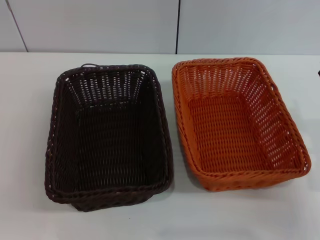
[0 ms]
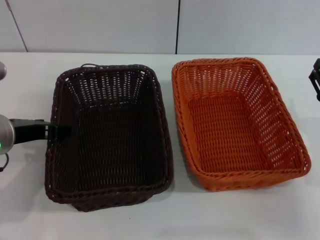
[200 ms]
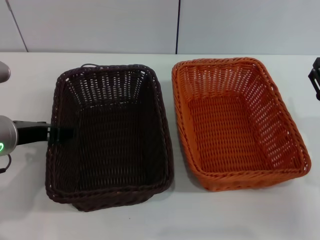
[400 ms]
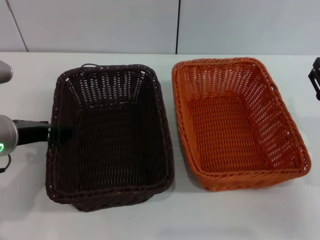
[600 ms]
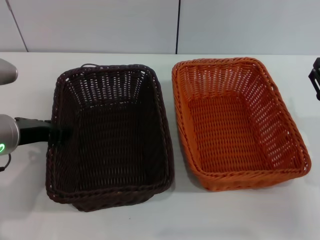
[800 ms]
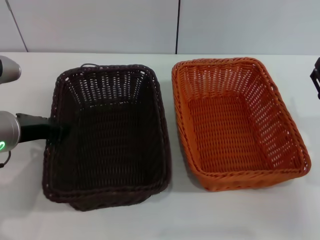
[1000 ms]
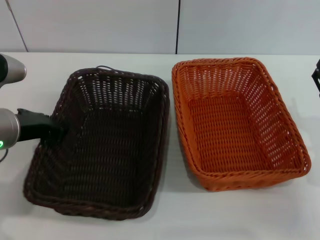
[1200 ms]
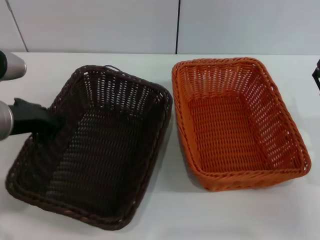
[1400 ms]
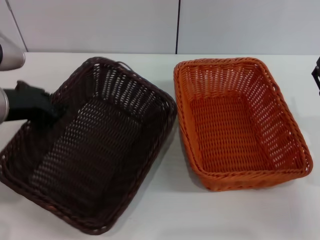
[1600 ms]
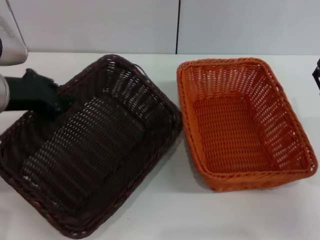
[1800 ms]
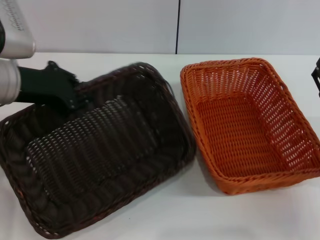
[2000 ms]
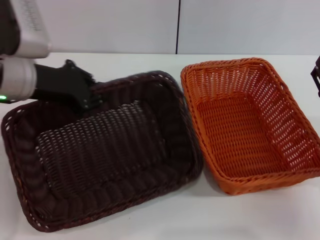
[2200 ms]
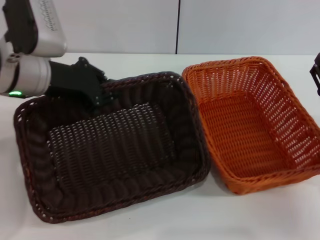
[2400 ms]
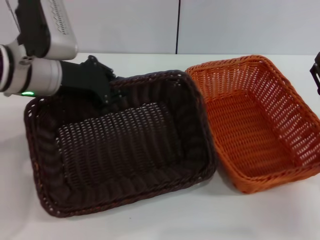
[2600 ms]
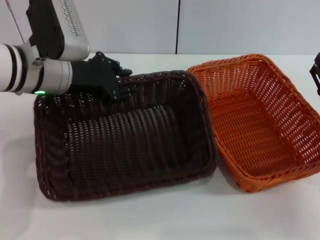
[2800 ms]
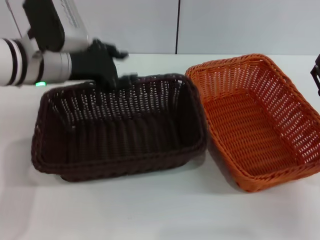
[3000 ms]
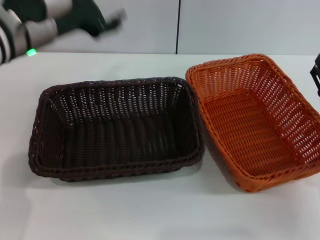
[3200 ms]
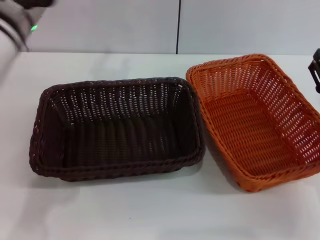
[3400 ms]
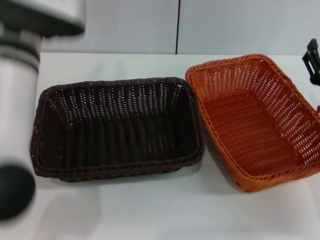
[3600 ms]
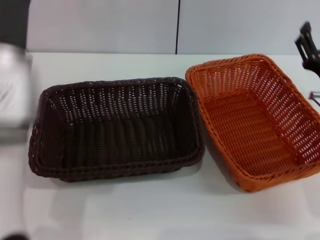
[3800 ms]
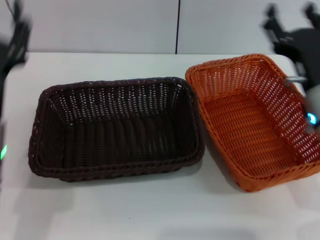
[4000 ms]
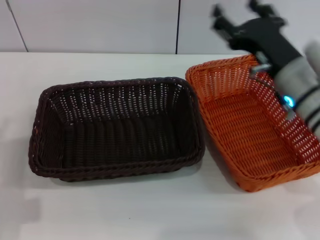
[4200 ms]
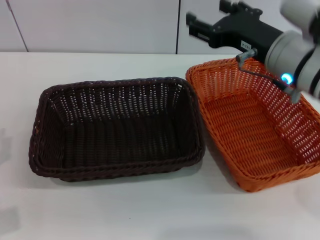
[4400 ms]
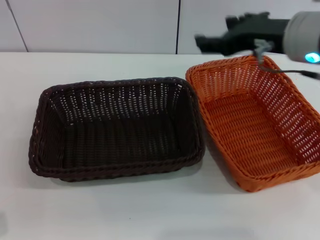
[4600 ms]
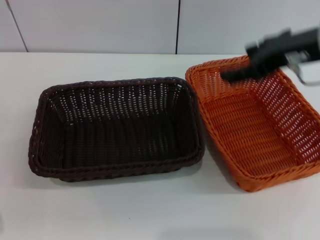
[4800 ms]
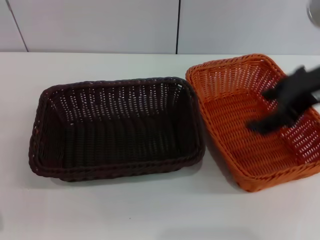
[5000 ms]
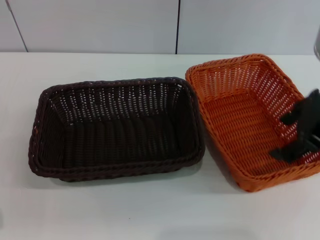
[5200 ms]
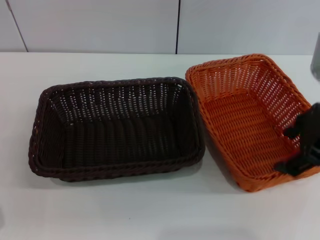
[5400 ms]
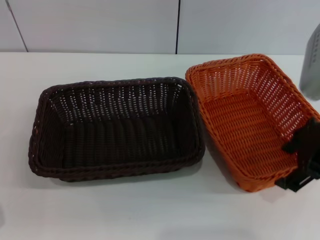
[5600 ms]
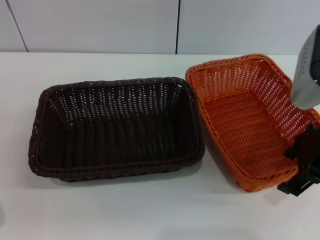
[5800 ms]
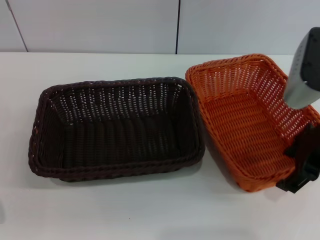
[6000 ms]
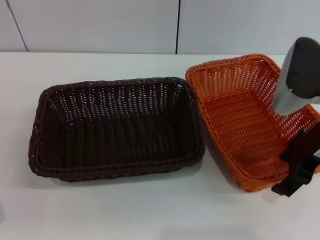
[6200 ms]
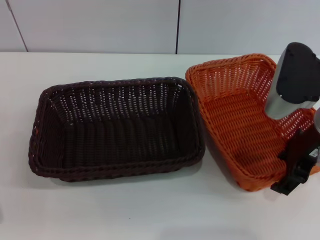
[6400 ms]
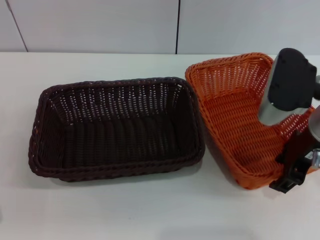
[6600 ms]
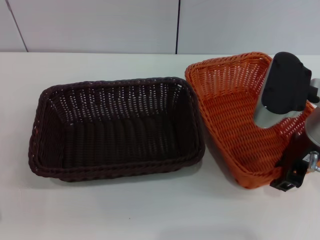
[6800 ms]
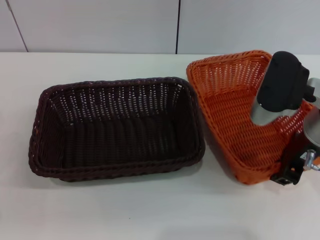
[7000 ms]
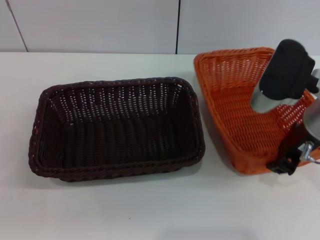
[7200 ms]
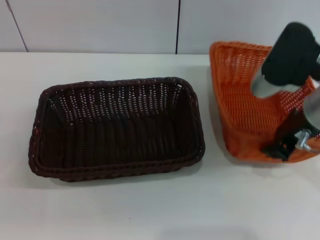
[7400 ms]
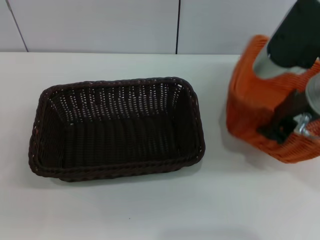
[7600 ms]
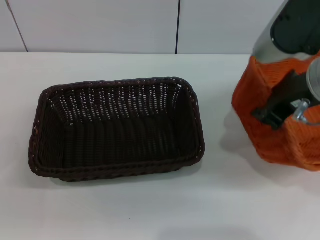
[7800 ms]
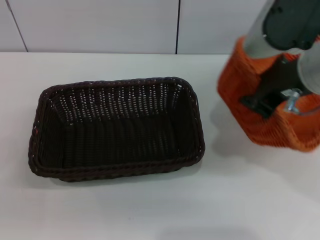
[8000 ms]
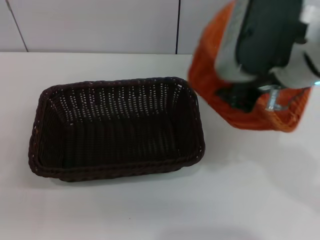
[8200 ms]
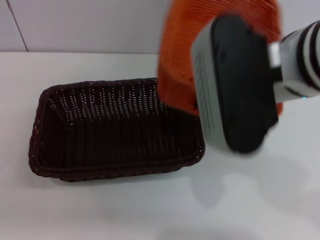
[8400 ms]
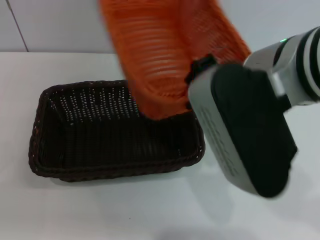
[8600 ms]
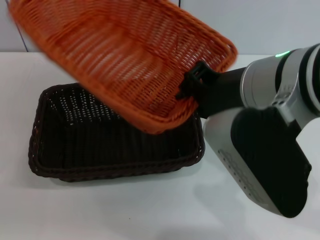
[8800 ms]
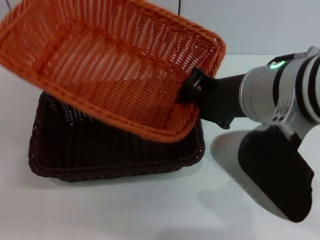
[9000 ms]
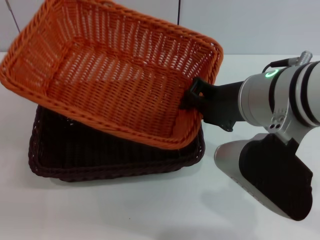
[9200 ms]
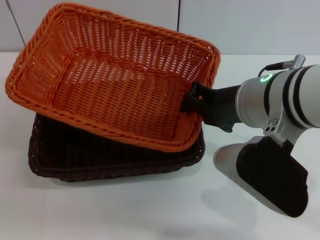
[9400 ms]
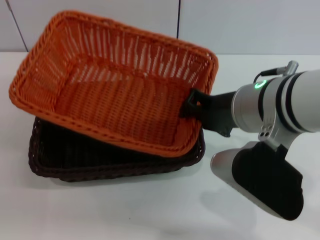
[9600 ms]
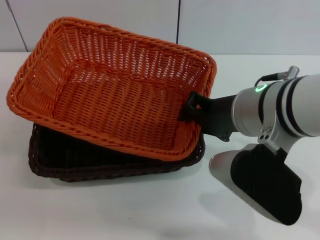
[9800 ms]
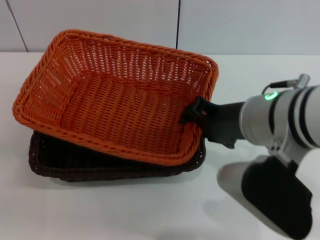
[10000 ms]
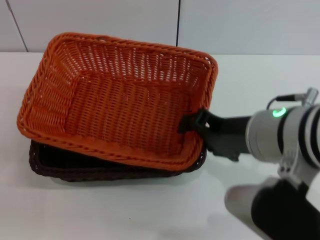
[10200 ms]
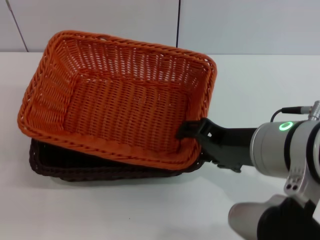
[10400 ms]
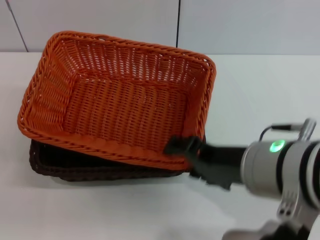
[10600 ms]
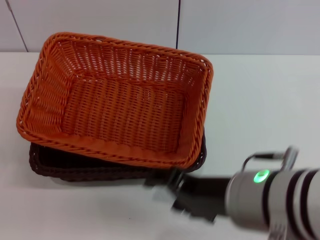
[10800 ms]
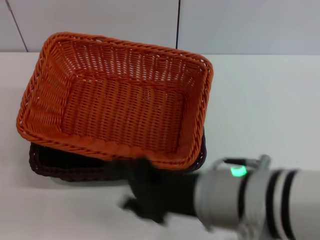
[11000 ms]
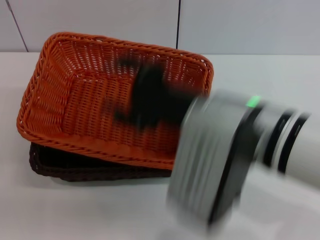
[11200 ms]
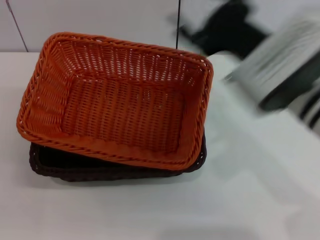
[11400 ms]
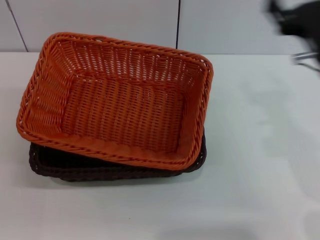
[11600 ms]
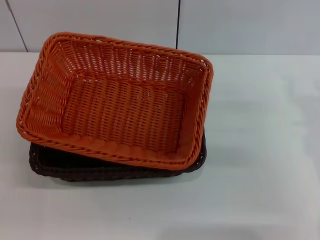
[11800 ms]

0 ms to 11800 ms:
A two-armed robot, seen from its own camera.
Step, 0 ms to 1600 ms: Pick up the dark basket with the left gripper.
Step, 1800 ms to 3000 ms: Place the dark basket in the center of view with the left gripper.
Step, 3200 ms to 7400 ms: Pick up the light basket with the right gripper.
Step, 7600 ms to 10600 ms: Place the light basket on the dark basket with the right gripper.
0 ms to 1400 ms: The left gripper travels upward, forward and to the right by some 25 cm, and closes.
1400 ms to 3000 ms: The left gripper heads forward, covering approximately 10 cm.
3000 ms to 4400 ms: The right gripper heads upward and to the left, covering about 20 cm. Meanwhile the left gripper is displaced backward, downward and to the left by some 25 cm, and opens up.
4400 ms to 6000 ms: The right gripper moves to the right, some 5 cm.
6000 ms to 7400 ms: The right gripper closes its fingers.
7400 ms to 8800 ms: The right gripper shifts some 10 cm to the left, backward and upward.
8800 ms to 10400 ms: The right gripper travels downward by some 5 cm, and opens its fingers.
10400 ms to 11800 ms: The right gripper shifts roughly 20 cm to the right, forward and downward.

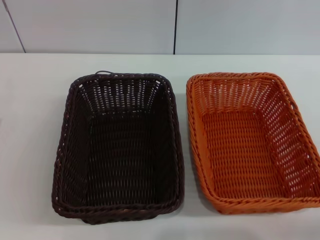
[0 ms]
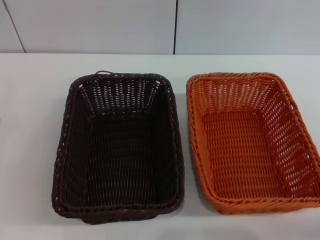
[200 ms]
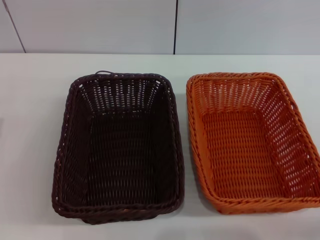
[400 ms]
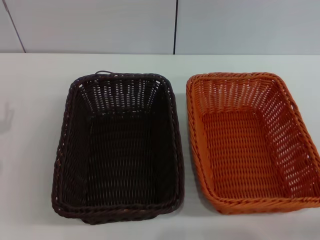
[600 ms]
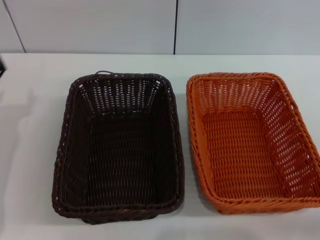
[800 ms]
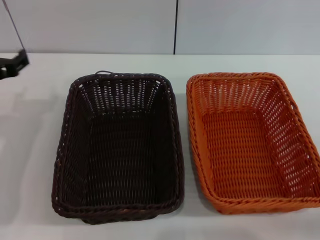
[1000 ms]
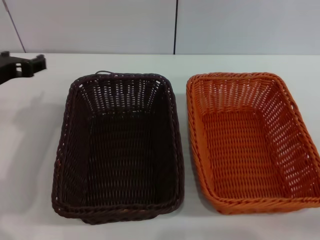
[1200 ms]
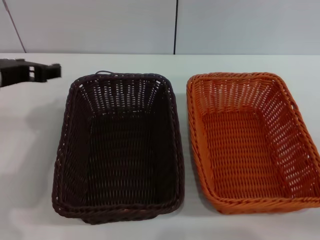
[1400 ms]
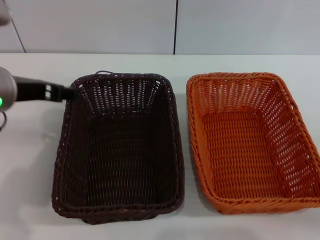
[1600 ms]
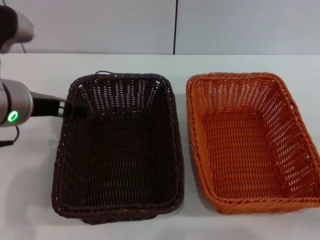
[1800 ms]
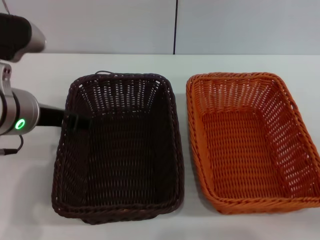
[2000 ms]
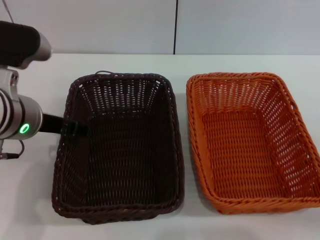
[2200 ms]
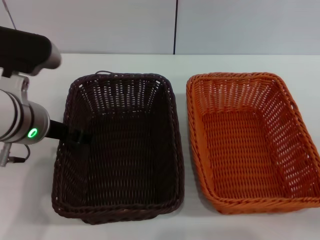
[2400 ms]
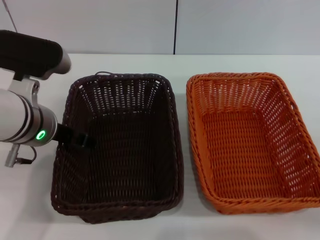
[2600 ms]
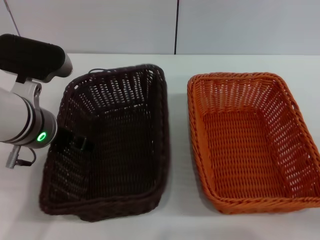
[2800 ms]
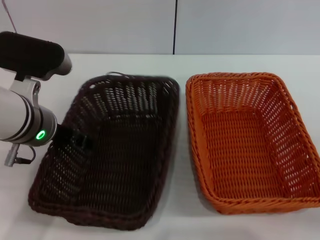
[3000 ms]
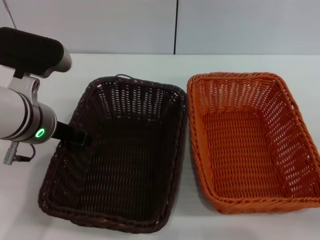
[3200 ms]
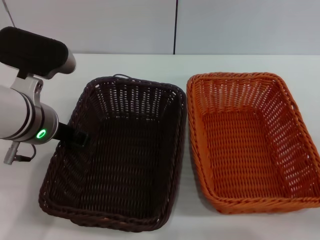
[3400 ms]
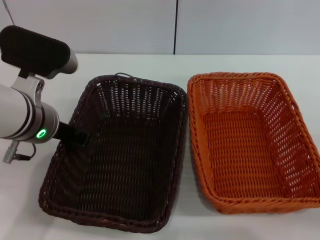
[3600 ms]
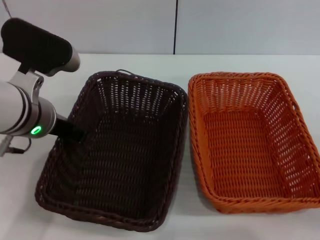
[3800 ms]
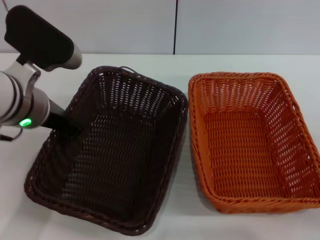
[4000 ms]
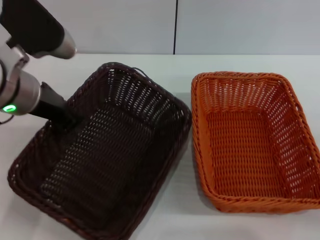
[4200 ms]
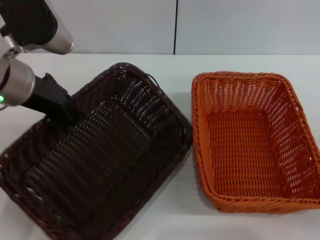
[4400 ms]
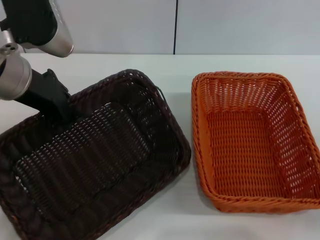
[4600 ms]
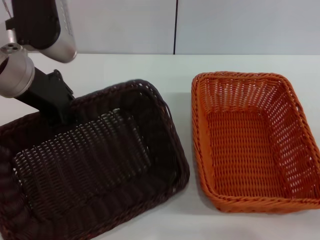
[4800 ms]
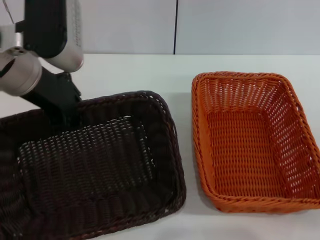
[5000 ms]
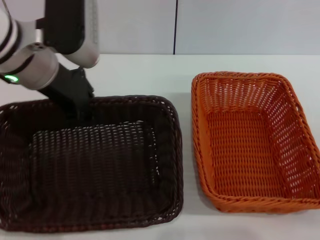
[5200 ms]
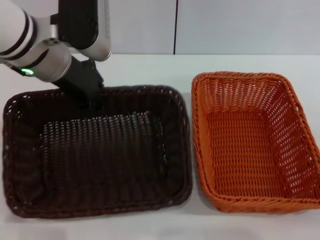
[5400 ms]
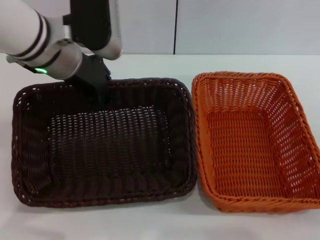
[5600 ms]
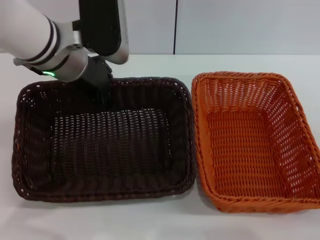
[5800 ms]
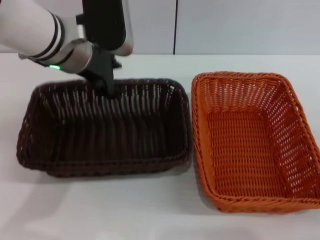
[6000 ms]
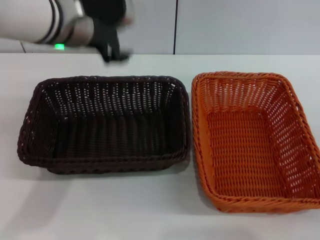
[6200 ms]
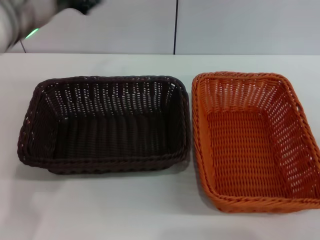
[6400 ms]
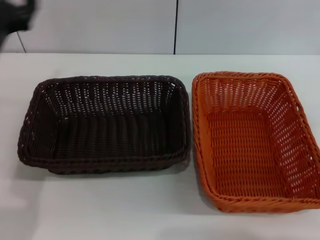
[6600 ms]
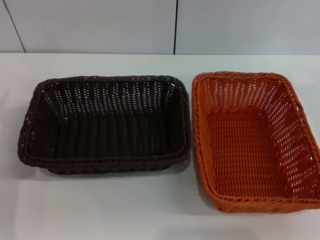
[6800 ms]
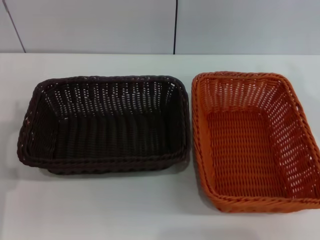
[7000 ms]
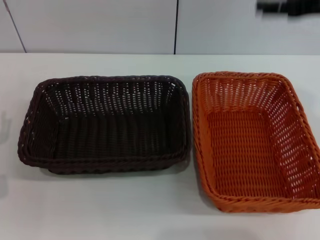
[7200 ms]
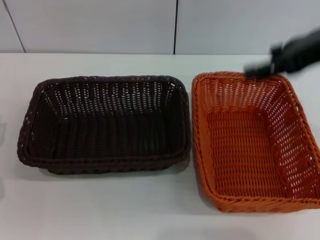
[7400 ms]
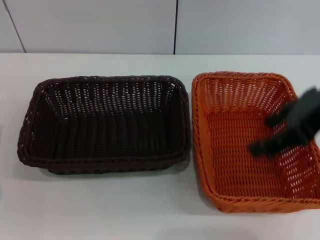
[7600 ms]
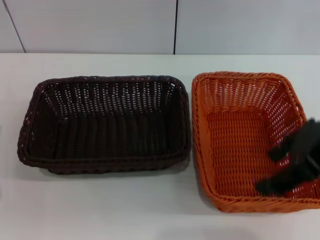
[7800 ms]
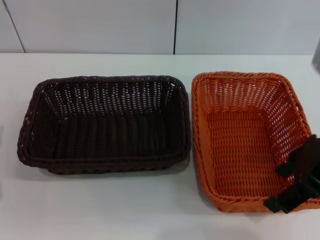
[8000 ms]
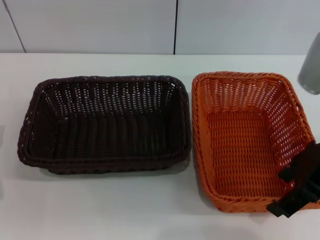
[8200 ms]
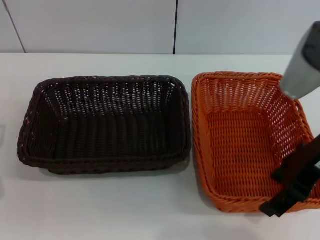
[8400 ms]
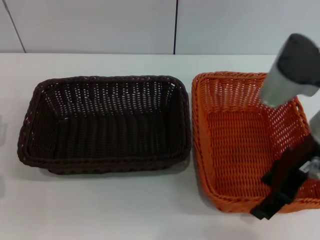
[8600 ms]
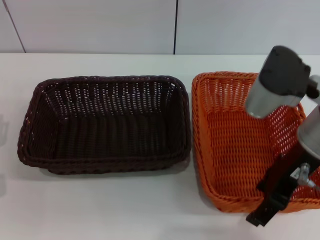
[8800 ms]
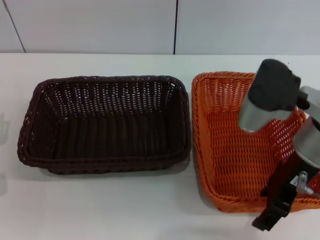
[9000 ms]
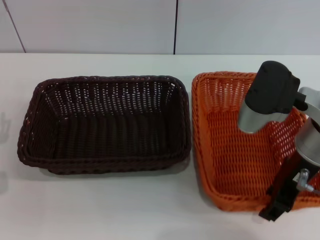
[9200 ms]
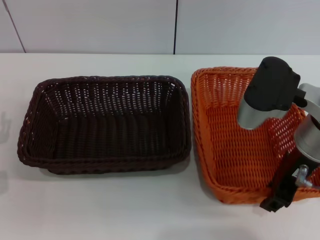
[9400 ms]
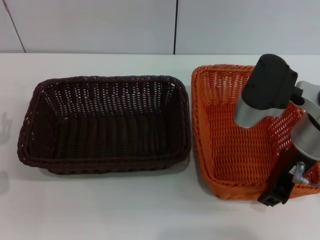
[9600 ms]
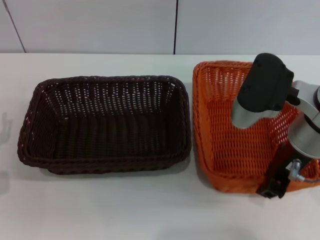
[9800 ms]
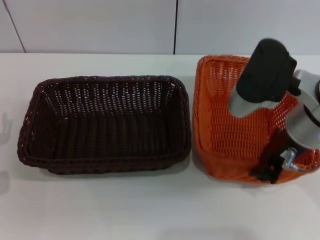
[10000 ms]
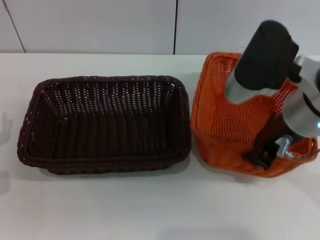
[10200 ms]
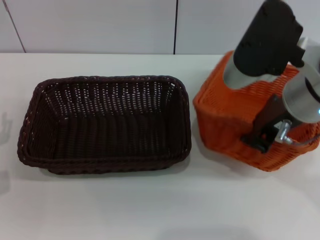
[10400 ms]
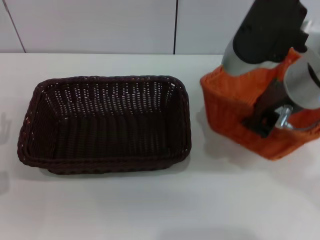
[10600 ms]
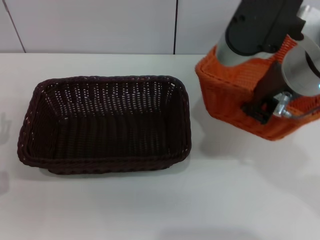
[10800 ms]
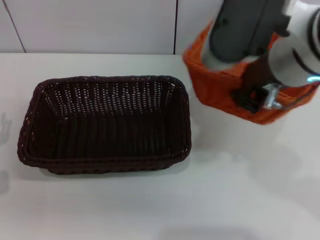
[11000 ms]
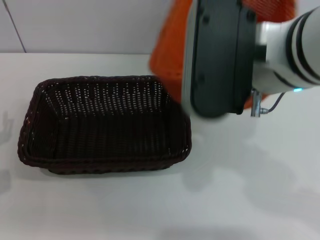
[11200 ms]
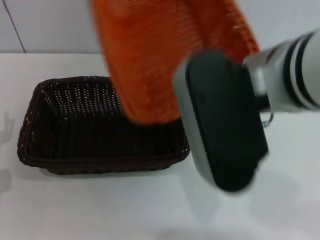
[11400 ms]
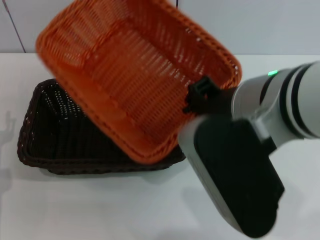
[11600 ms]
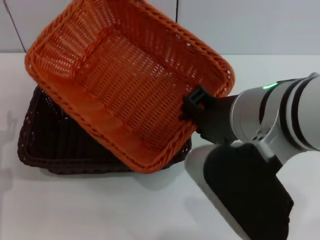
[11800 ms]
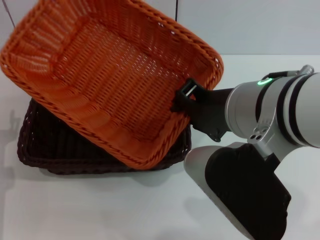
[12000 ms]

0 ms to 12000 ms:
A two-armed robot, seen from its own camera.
Step, 0 ms to 4600 ms: Pick up the dark basket with the left gripper.
Step, 4800 ms to 6000 ms: Place the dark basket in the center of view with the left gripper.
Step, 6200 ms to 10400 ms: Pick up the light basket with the right gripper.
0 ms to 1600 ms: The left gripper shifts roughly 20 cm upward and to the right.
1600 ms to 3000 ms: The left gripper moves downward, some 5 cm.
3000 ms to 4400 ms: The left gripper shifts some 5 cm upward, and closes its fingers.
4400 ms to 6000 ms: The left gripper travels forward and to the right by approximately 10 cm.
6000 ms to 7600 ms: The left gripper moves to the left, downward and backward, about 30 cm, and opens. The right gripper travels upward and to the left by some 25 cm.
7600 ms to 9000 ms: The right gripper goes approximately 10 cm downward and to the left.
9000 ms to 10400 ms: The right gripper changes place by approximately 5 cm, and closes its fingers.
10400 ms to 12000 ms: The right gripper heads to the left and backward, covering approximately 10 cm.
